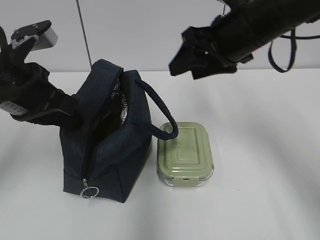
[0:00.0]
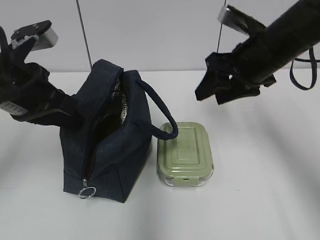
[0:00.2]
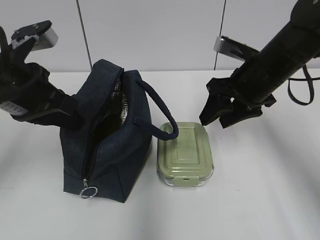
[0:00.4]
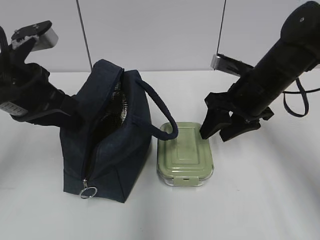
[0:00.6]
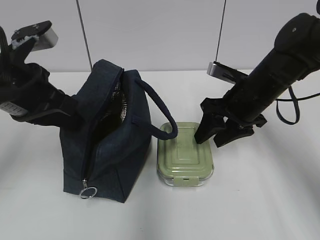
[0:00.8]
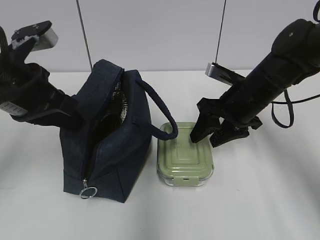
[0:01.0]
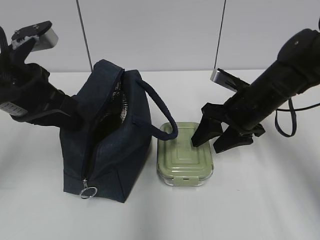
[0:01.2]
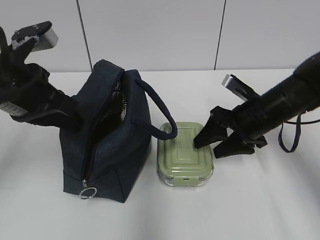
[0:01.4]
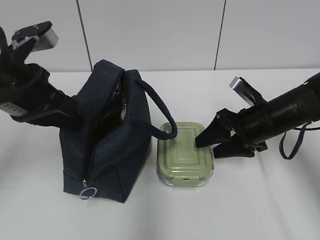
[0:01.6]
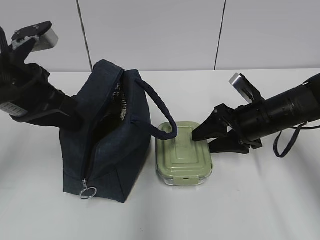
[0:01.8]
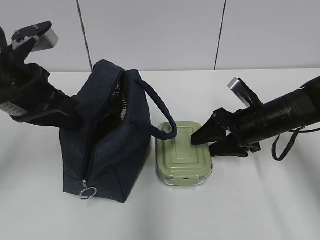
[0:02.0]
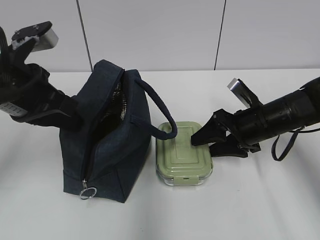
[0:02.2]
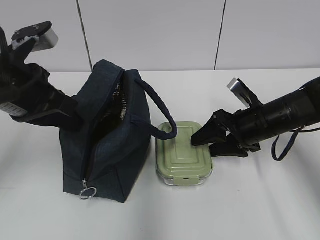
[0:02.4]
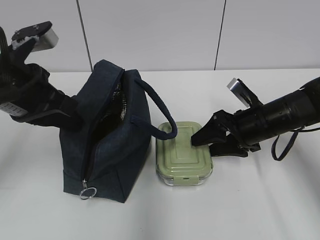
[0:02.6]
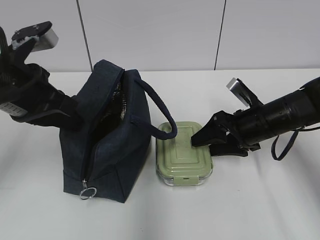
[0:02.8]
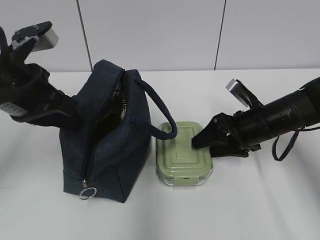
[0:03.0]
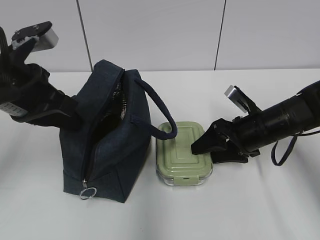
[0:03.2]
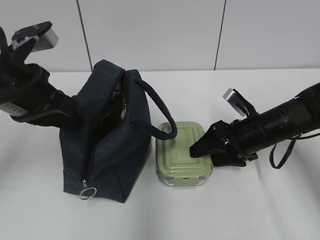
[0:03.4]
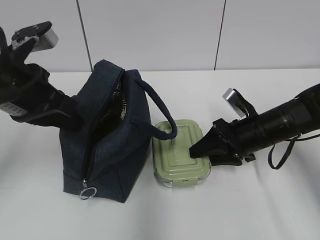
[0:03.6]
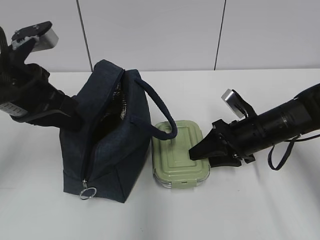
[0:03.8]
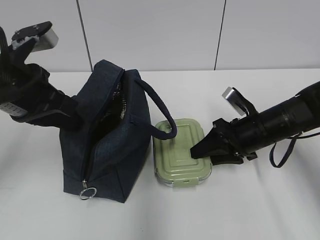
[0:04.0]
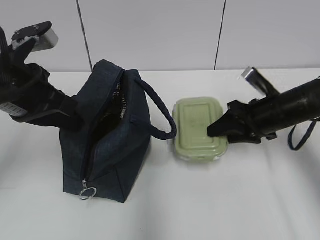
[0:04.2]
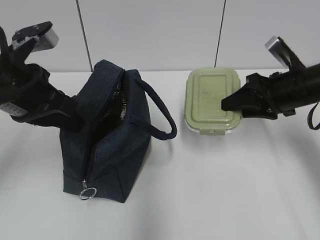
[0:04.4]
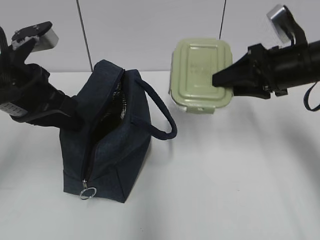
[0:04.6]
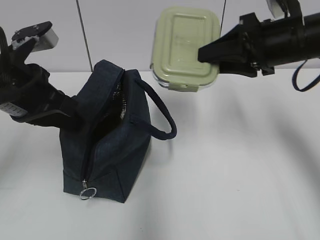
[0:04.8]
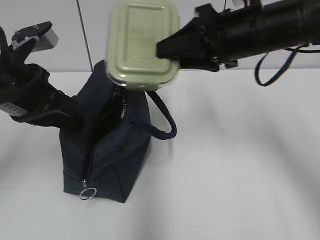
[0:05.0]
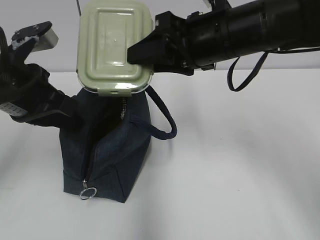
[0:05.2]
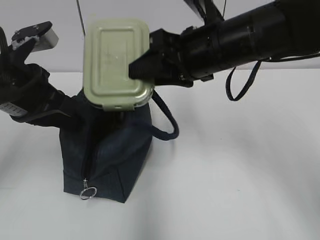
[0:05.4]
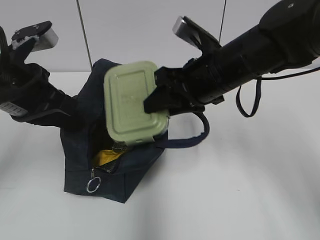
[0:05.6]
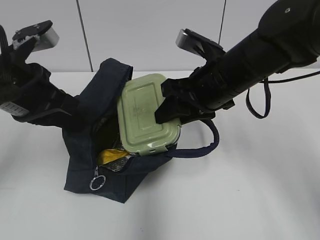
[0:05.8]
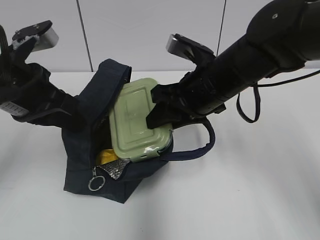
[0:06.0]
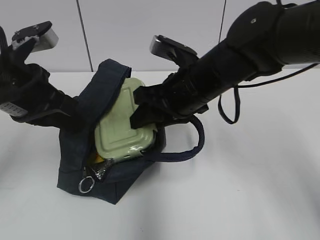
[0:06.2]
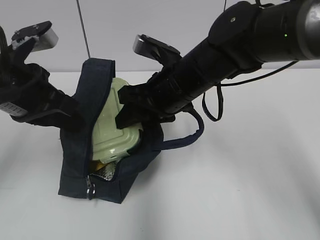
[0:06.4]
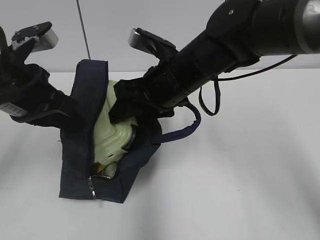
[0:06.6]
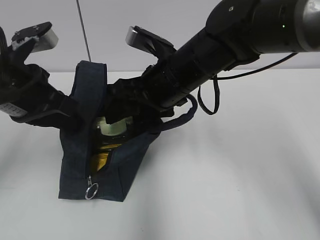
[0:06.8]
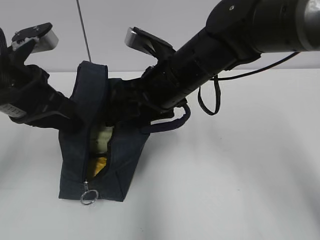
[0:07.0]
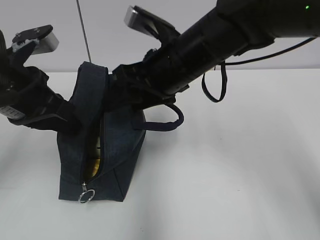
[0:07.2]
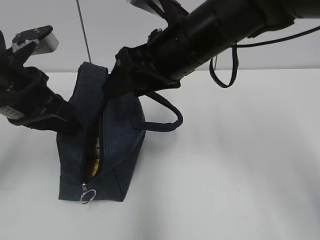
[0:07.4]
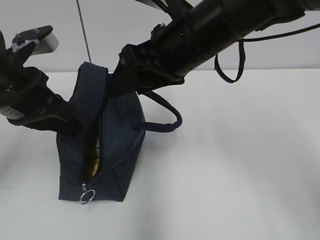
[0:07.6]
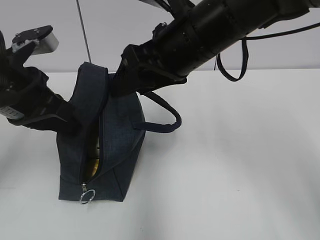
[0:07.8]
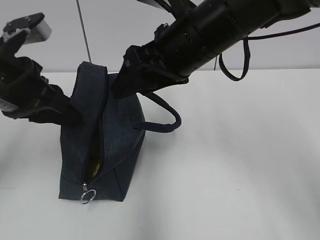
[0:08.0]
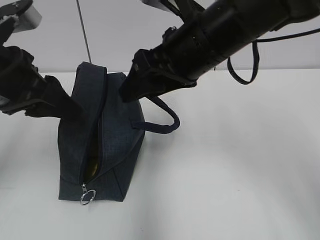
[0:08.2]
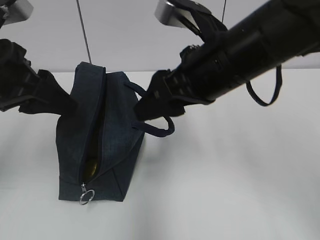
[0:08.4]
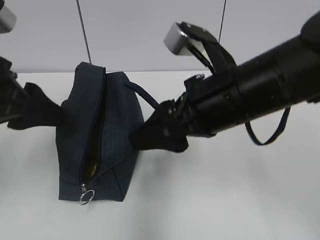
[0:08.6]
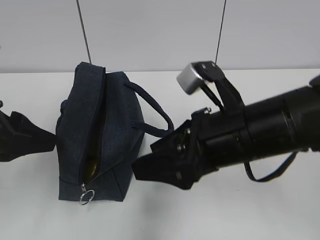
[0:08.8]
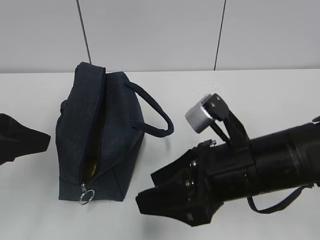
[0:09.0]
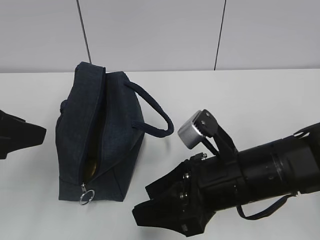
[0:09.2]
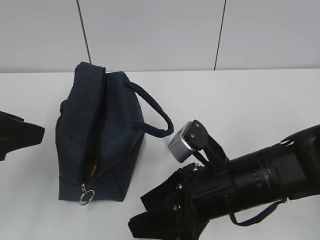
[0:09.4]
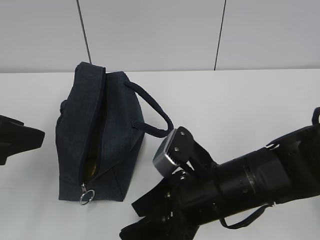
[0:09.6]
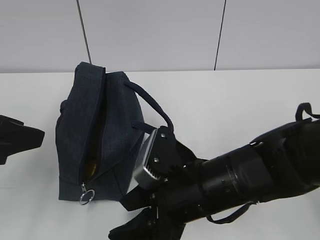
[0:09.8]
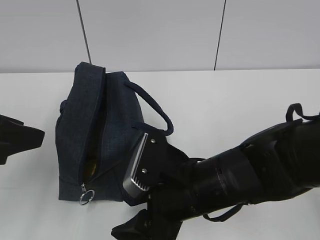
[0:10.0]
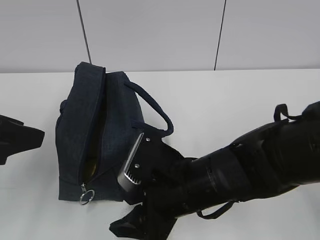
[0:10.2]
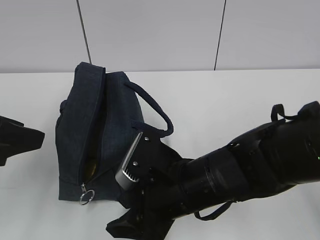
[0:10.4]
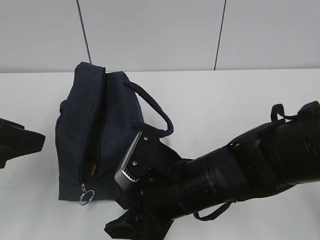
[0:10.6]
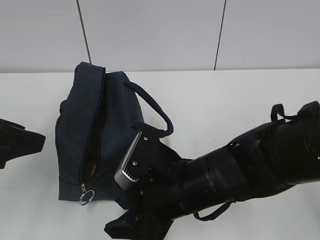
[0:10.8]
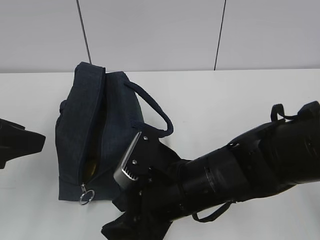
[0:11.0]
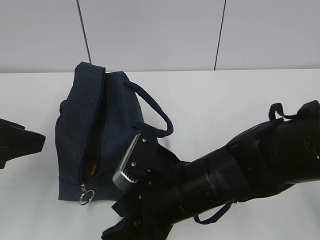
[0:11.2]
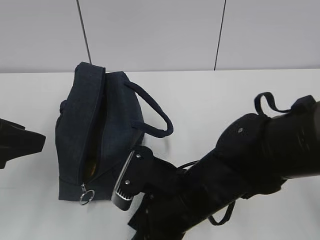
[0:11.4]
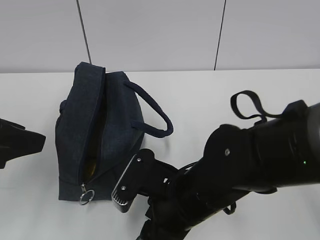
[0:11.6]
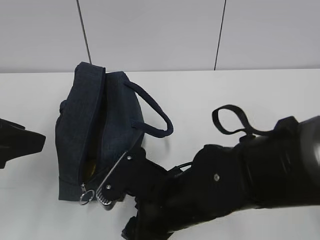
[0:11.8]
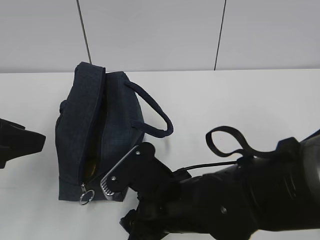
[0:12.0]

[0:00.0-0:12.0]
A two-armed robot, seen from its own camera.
0:00.0 to 0:01.6: The right gripper shifts some 15 cm downward and to the right.
0:01.6 to 0:03.0: Both grippers stay about where they are.
0:03.0 to 0:04.4: The right gripper heads upward, covering about 10 cm, and closes up.
0:04.4 to 0:06.0: The right gripper goes some 15 cm to the left.
0:06.0 to 0:07.6: The right gripper shifts about 10 cm upward, and opens.
0:07.6 to 0:09.0: The right gripper travels downward and backward by roughly 15 cm; the left gripper moves backward, roughly 10 cm, and opens its fingers.
0:09.0 to 0:10.4: The right gripper travels to the left and downward by approximately 10 cm.

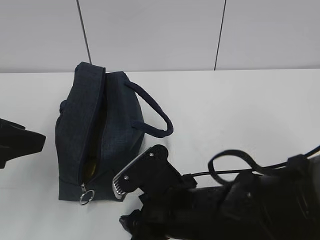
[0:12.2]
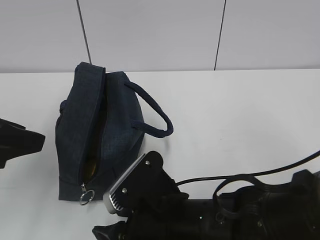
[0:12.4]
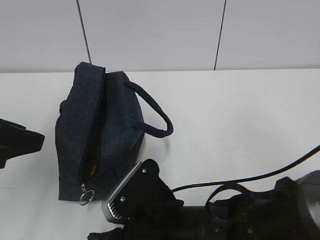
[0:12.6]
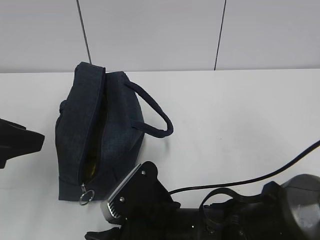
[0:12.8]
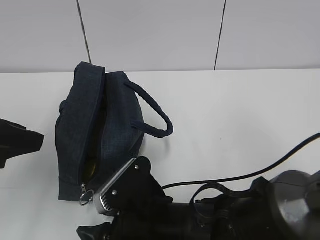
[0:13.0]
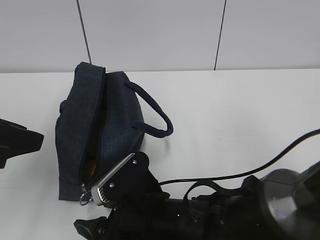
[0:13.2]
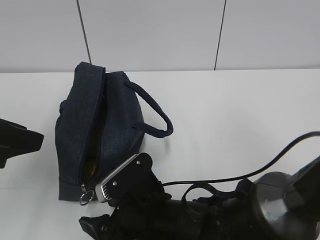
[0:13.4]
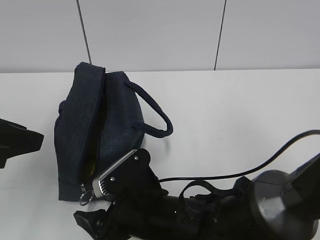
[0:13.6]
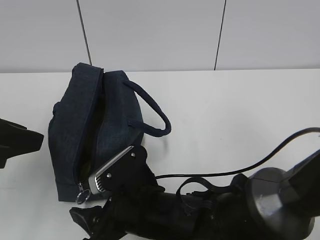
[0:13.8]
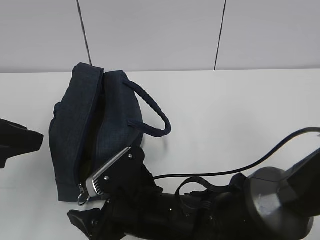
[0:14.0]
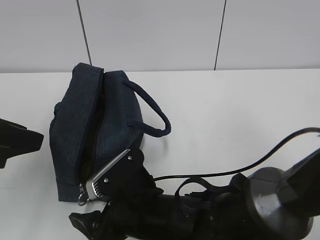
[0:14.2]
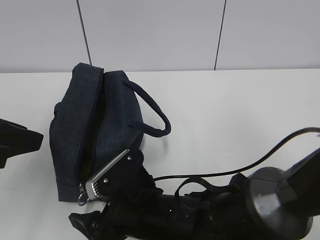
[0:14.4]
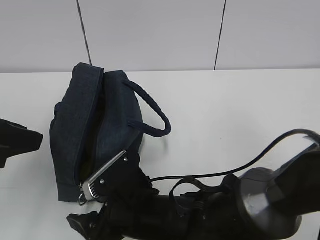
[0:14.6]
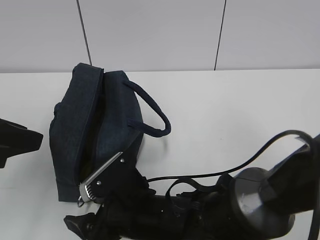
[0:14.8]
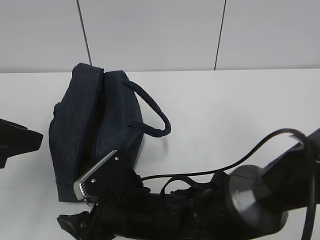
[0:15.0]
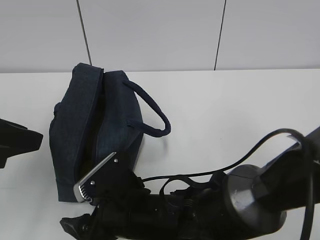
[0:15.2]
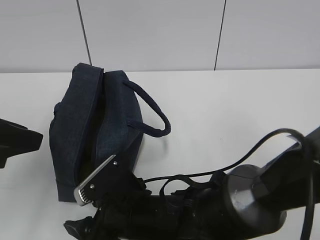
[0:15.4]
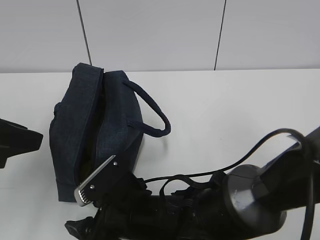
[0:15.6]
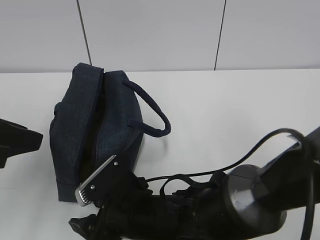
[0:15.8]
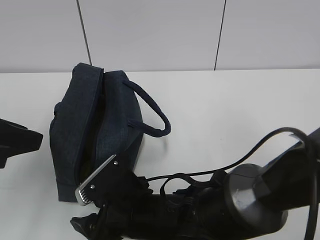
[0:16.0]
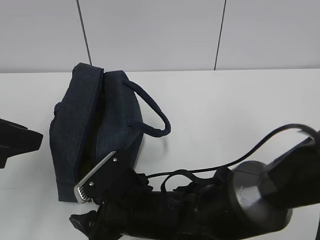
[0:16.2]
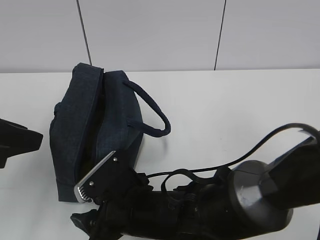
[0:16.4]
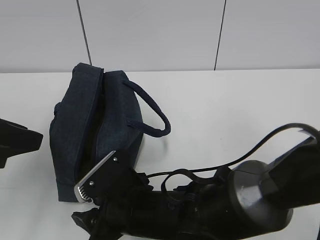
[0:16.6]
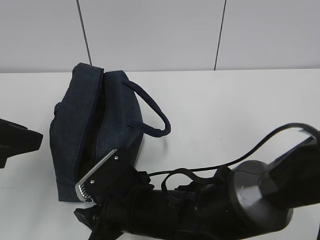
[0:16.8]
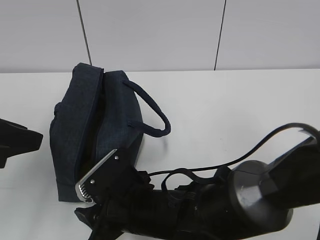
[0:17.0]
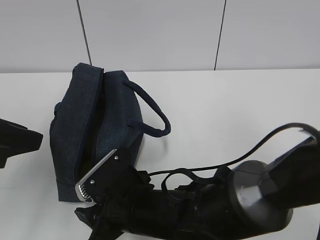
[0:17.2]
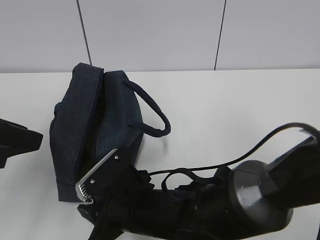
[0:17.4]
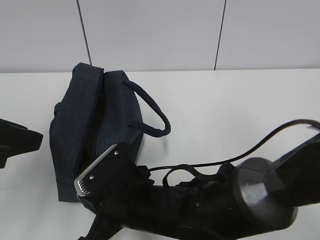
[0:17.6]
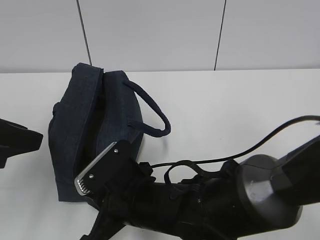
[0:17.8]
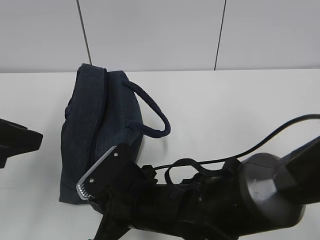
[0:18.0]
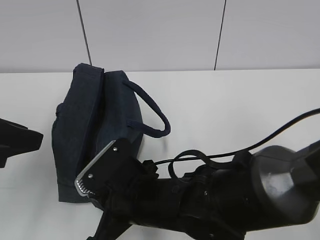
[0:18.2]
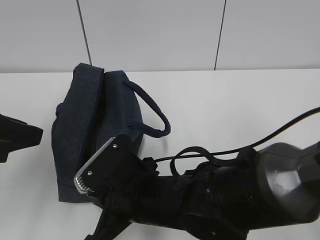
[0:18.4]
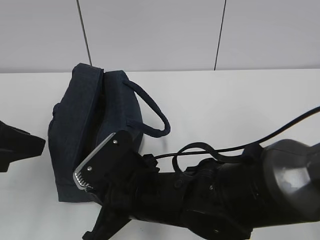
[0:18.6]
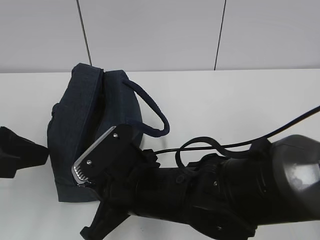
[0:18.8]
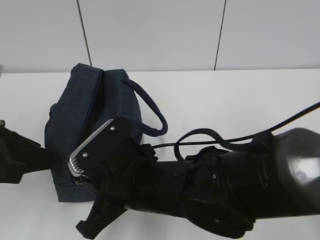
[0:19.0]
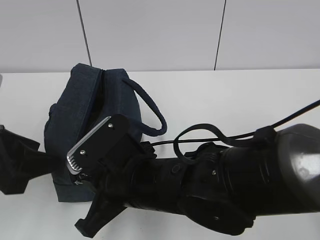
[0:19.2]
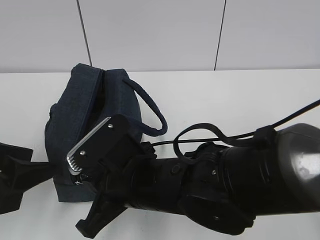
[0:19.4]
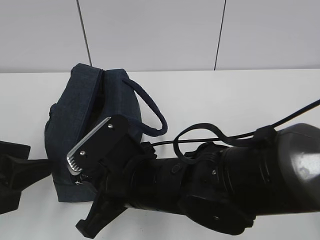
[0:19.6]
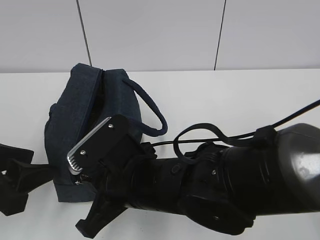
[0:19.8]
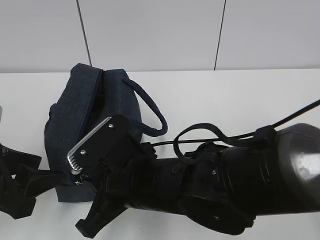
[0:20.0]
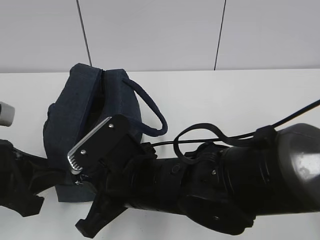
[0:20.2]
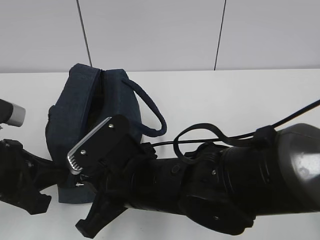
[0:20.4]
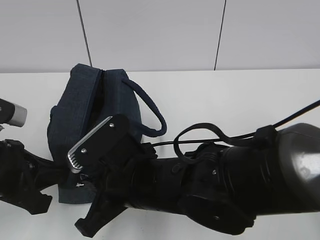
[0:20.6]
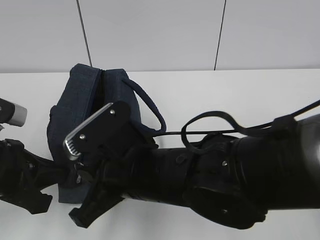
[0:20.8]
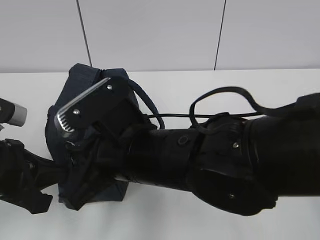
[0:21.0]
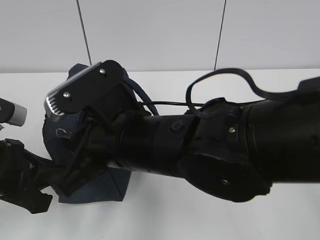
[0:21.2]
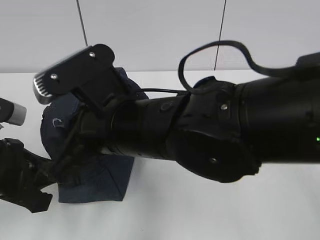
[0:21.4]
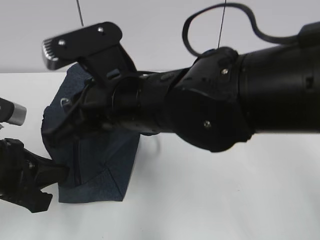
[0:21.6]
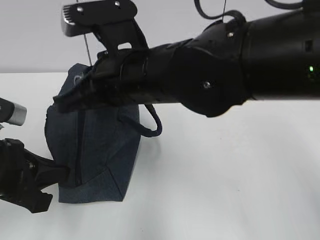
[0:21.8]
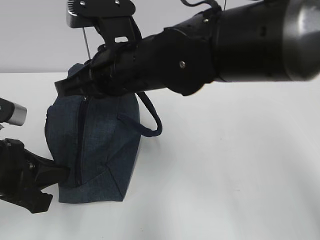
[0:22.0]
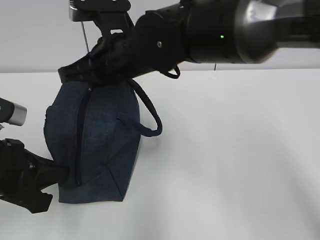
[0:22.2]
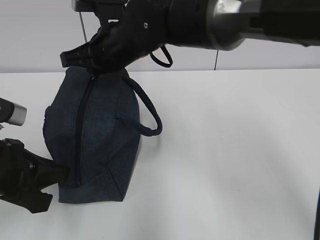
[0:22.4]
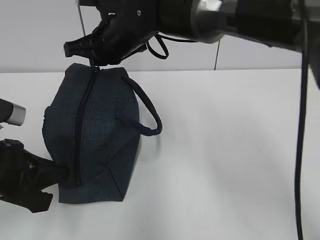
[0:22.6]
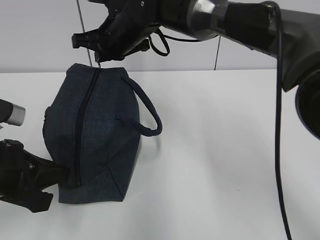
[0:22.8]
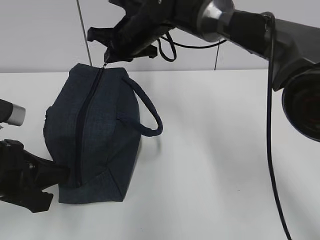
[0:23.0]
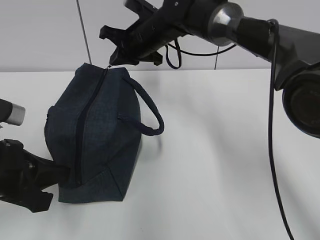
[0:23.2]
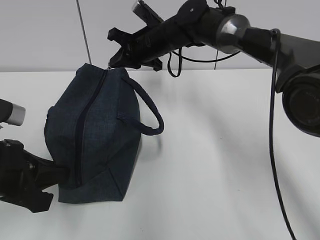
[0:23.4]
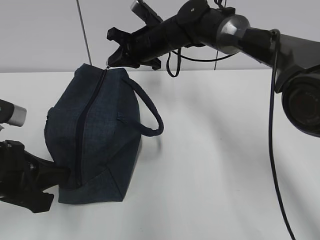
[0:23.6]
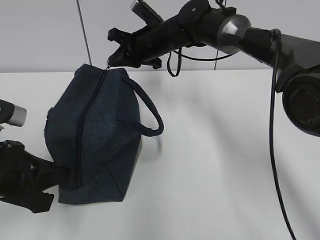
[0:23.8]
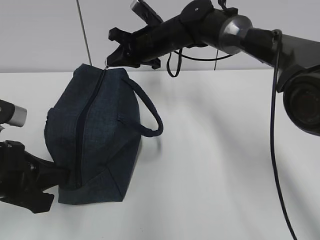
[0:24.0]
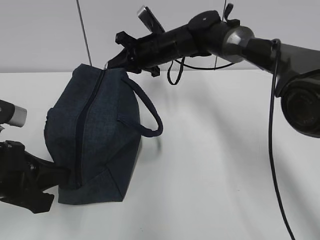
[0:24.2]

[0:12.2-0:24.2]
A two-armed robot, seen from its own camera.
0:13.8 to 0:16.6: The grippers move only a little.
0:16.6 to 0:18.2: The right gripper closes up.
0:18.2 to 0:19.8: The left gripper heads downward, covering some 5 cm.
0:19.8 to 0:21.2: The left gripper closes its fingers, while the right gripper travels upward by some 5 cm.
0:21.2 to 0:22.6: The right gripper heads forward, covering about 20 cm.
0:22.6 to 0:24.2: The right gripper heads forward, to the right and downward, covering some 15 cm.
